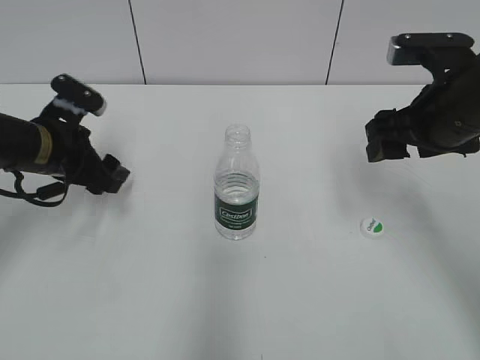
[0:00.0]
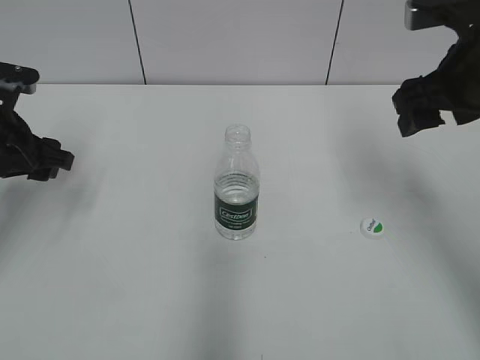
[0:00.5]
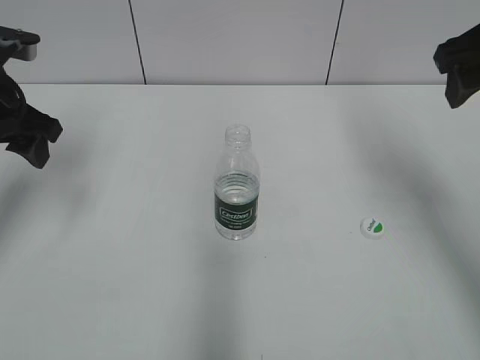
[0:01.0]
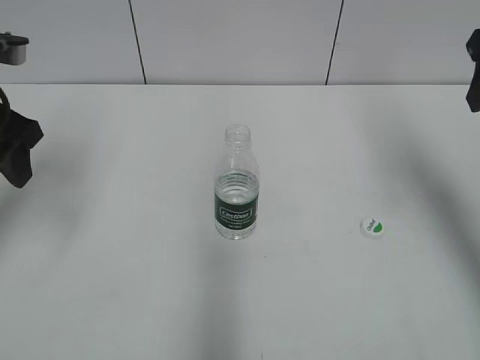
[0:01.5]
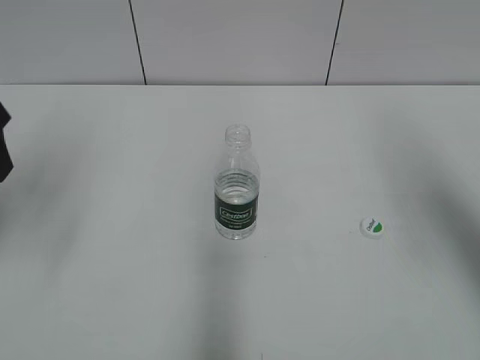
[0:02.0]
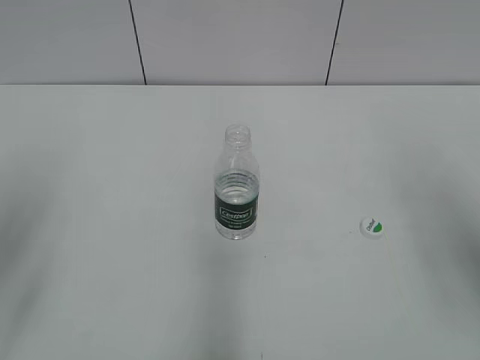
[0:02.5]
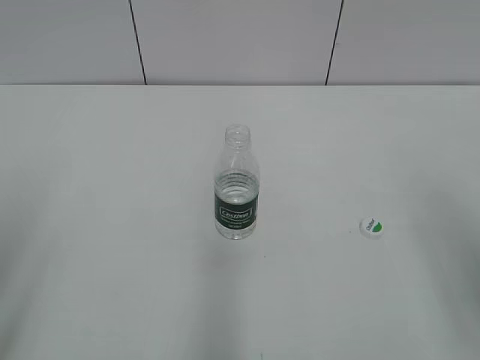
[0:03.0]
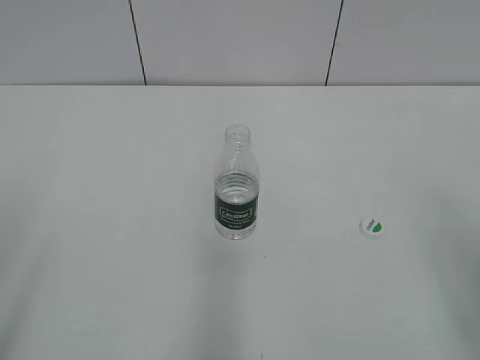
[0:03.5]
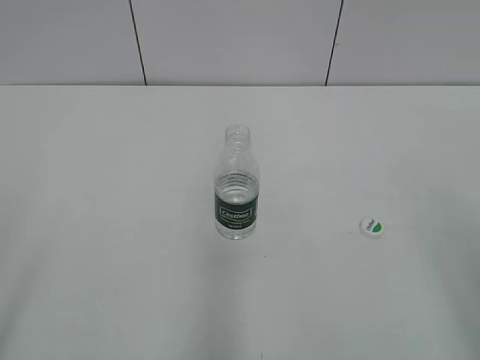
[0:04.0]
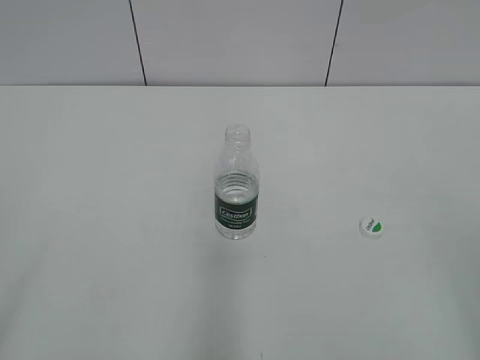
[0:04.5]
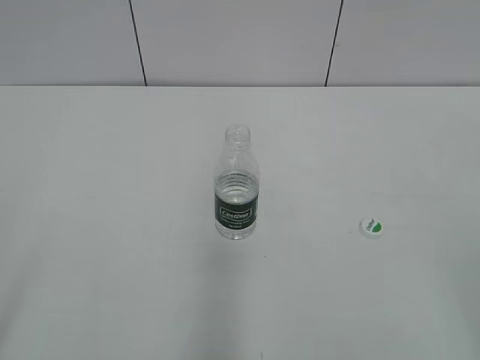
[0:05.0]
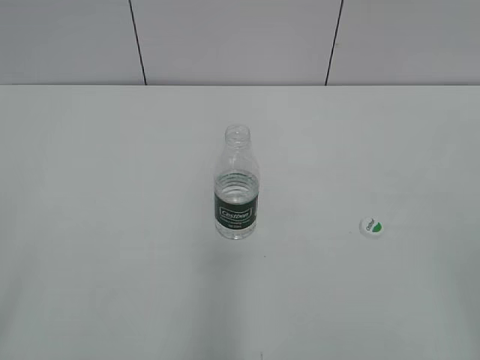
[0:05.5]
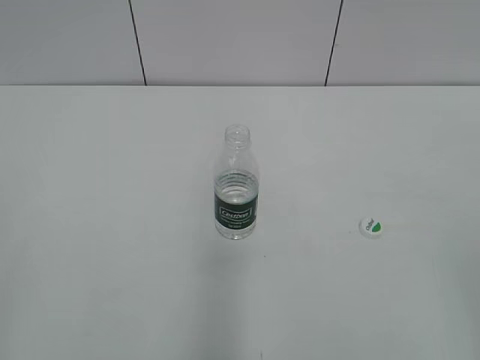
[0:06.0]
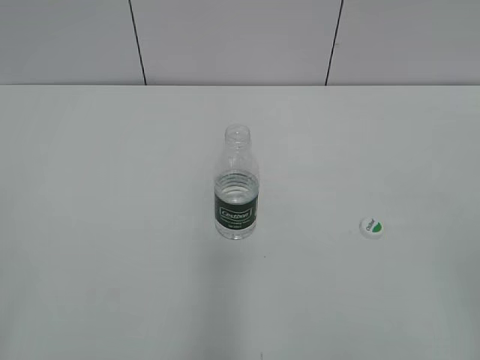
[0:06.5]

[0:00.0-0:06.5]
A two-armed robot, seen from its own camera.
0:00.0 to 0:02.0: The right gripper moves upward, backward and to the right, approximately 15 cm, while the left gripper moves upward and backward, approximately 20 cm.
0:02.0 to 0:04.5: Both grippers travel together backward, roughly 25 cm.

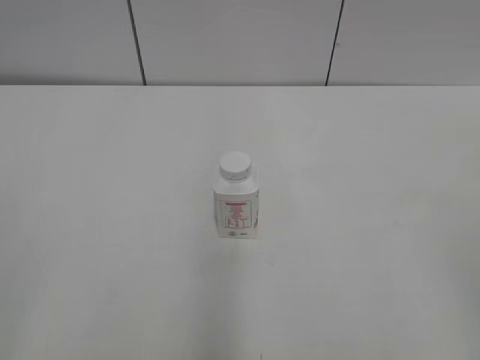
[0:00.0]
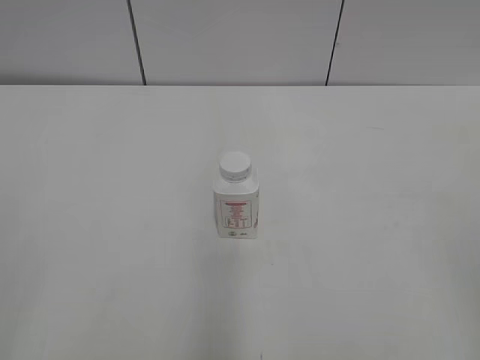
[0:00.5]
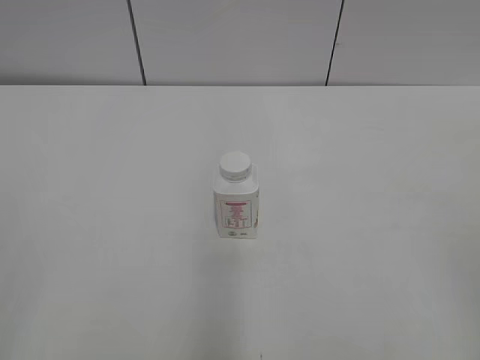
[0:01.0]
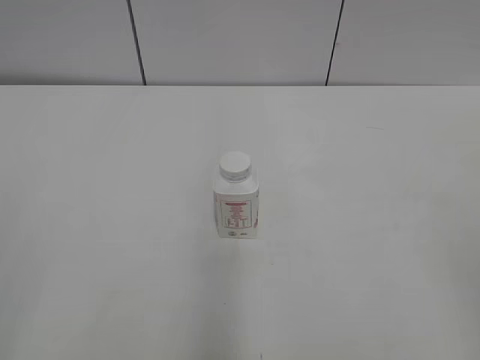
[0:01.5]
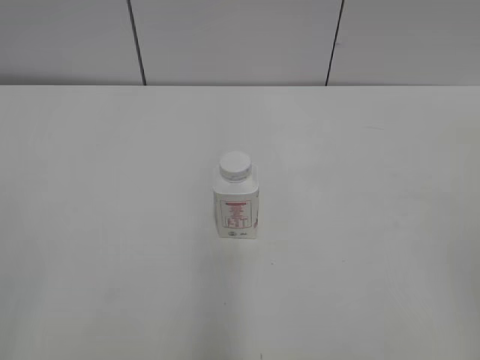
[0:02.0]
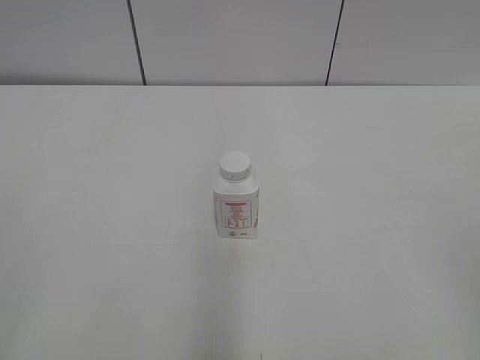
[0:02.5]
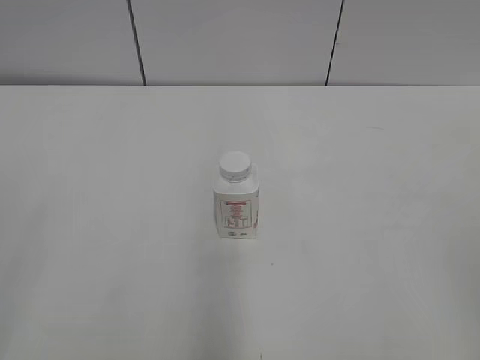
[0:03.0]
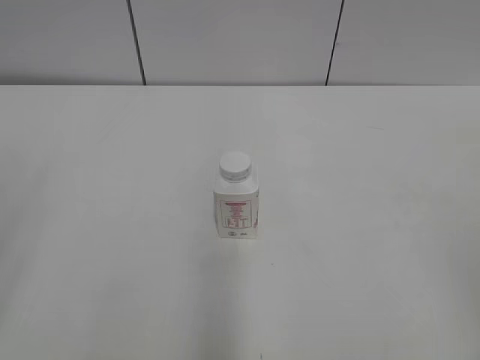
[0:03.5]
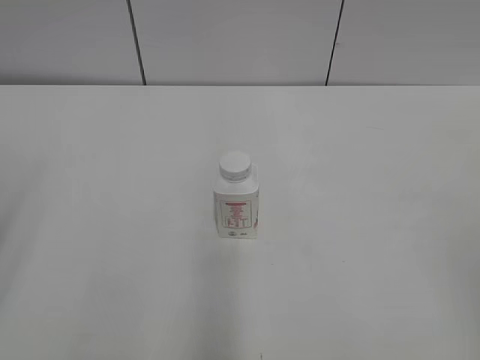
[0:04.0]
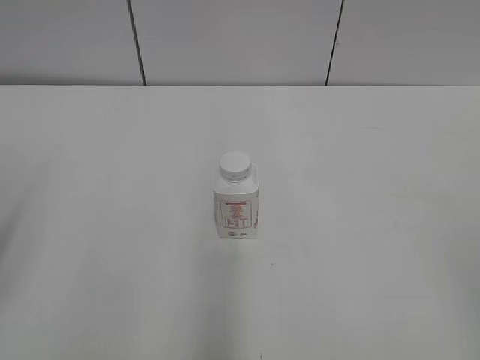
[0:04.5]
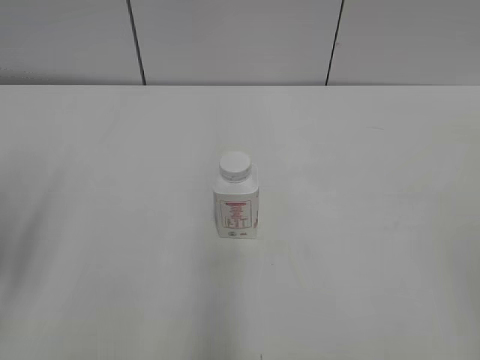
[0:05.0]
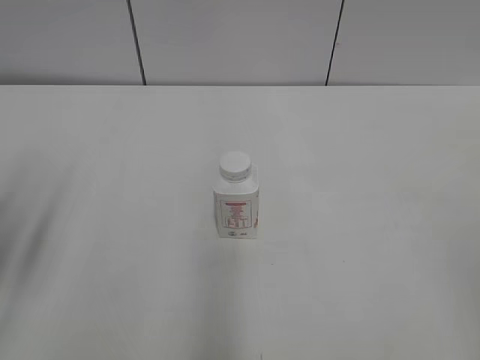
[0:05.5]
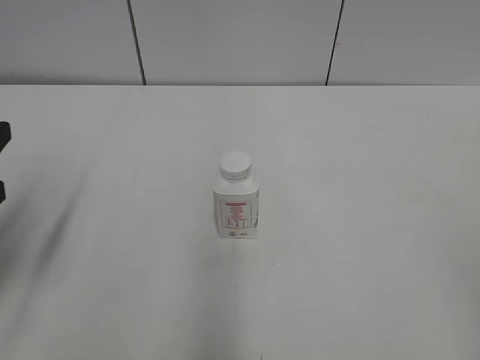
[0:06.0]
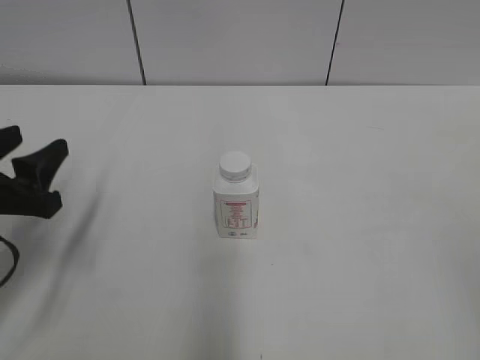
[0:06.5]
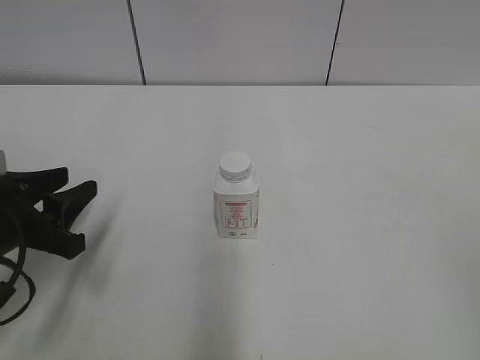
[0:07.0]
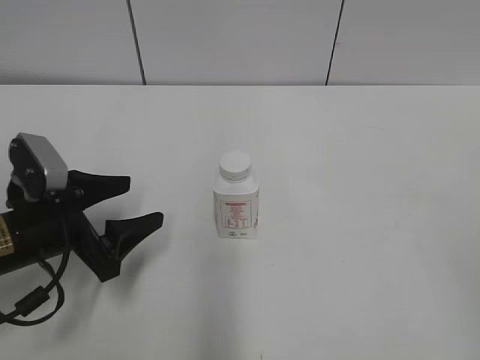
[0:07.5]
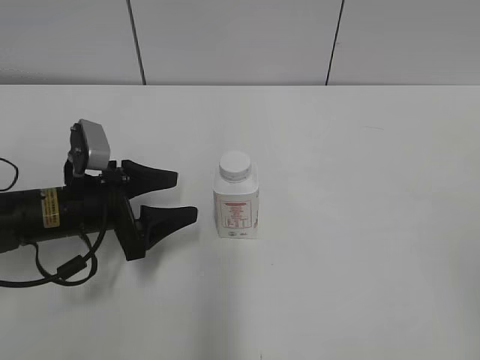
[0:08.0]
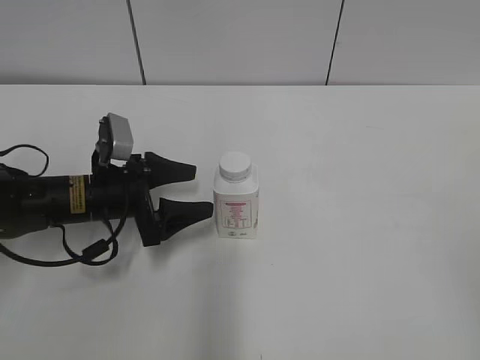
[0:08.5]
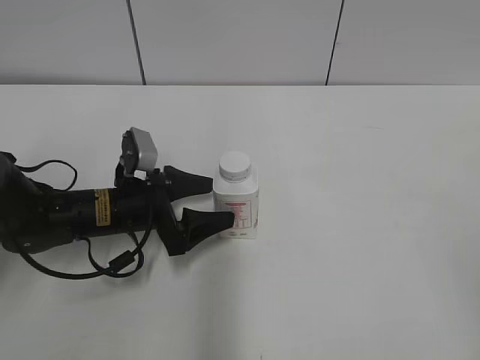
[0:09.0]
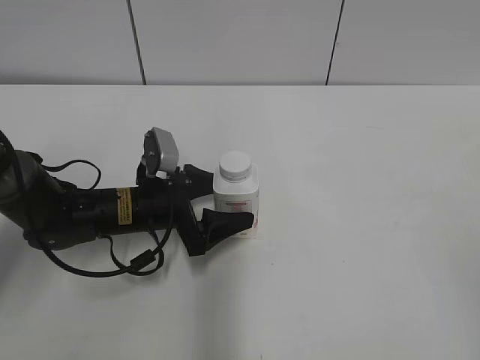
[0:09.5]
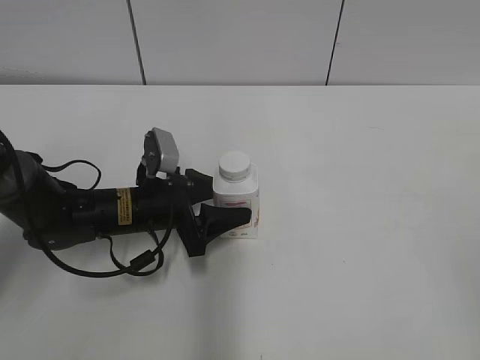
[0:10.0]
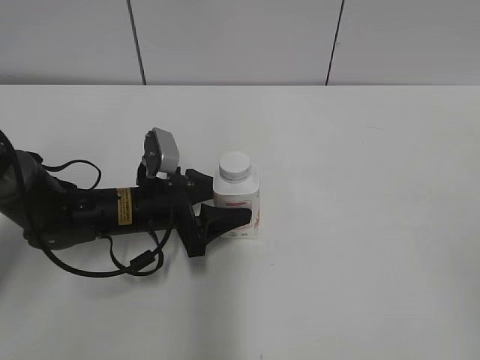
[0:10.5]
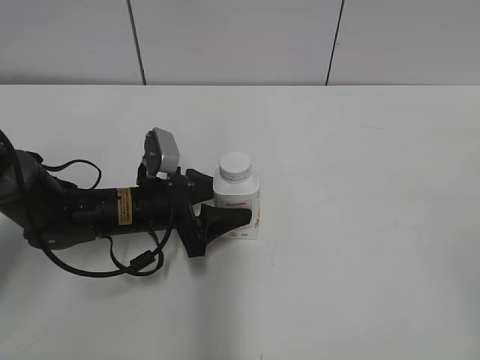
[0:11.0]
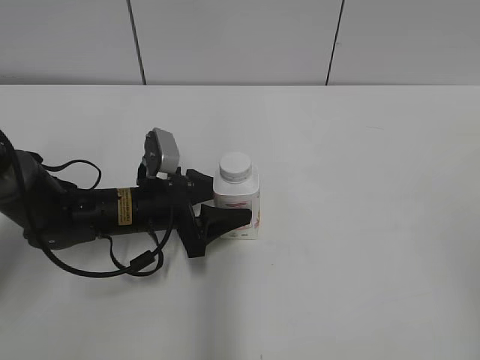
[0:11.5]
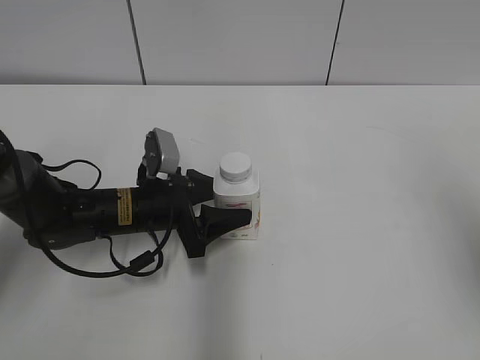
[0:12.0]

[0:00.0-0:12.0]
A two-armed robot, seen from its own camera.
Step, 0:00.0 to 0:10.0: Grab the Yili Changqing with the left hand.
0:04.0 to 0:06.0: The left gripper goes approximately 10 cm forward and downward.
0:06.0 to 0:08.0: The left gripper is displaced downward, forward and to the right by about 20 cm, and opens up.
0:08.0 to 0:10.0: The left gripper moves to the right, some 5 cm.

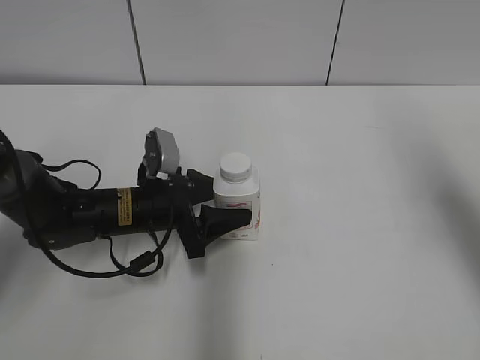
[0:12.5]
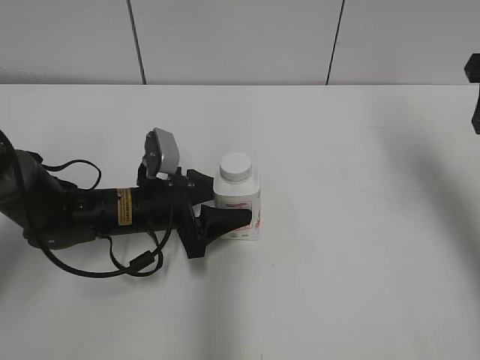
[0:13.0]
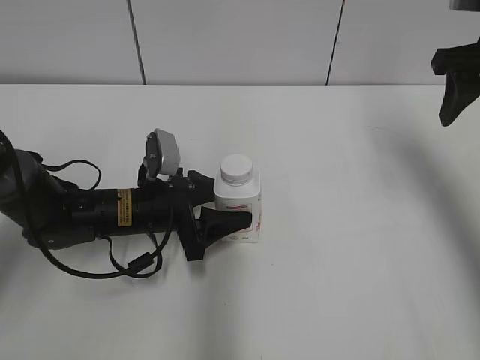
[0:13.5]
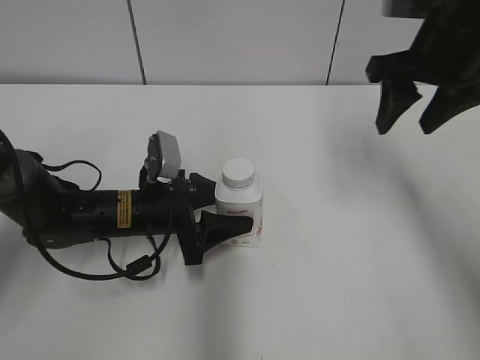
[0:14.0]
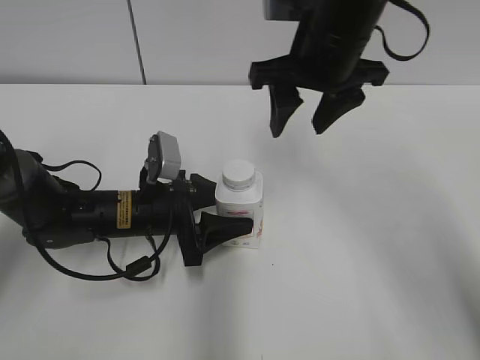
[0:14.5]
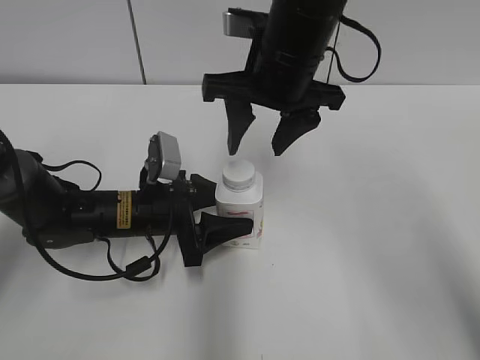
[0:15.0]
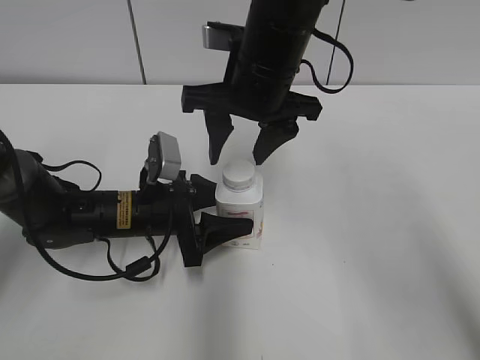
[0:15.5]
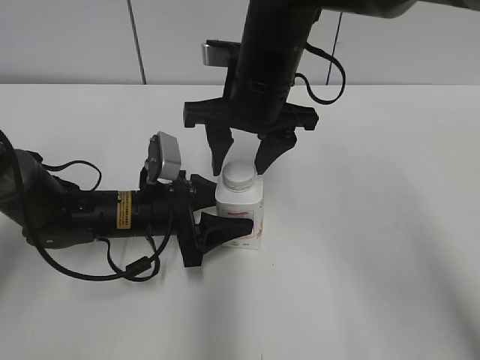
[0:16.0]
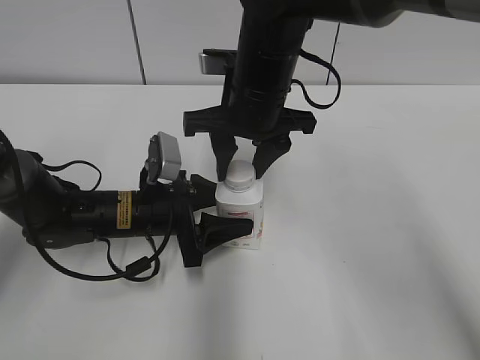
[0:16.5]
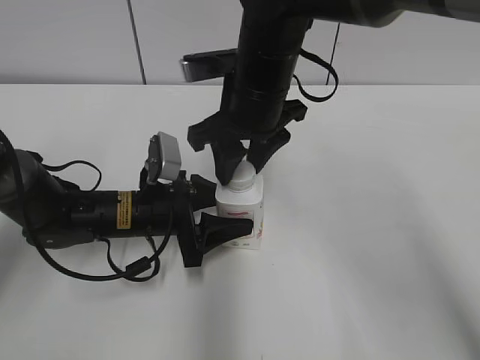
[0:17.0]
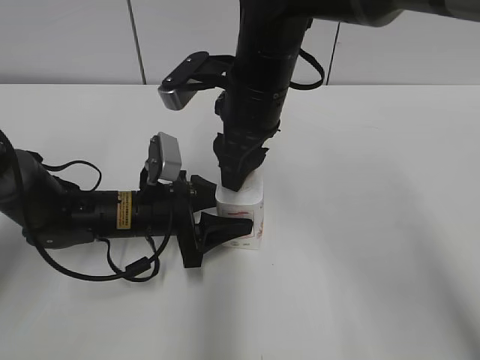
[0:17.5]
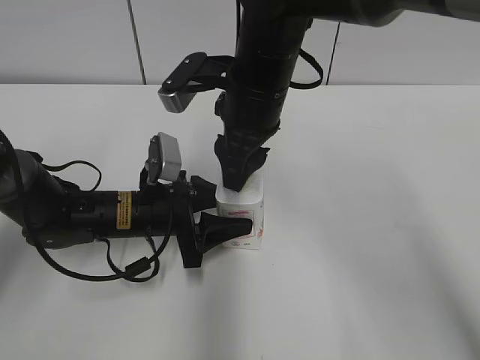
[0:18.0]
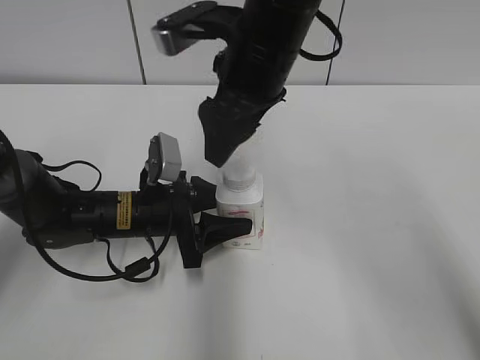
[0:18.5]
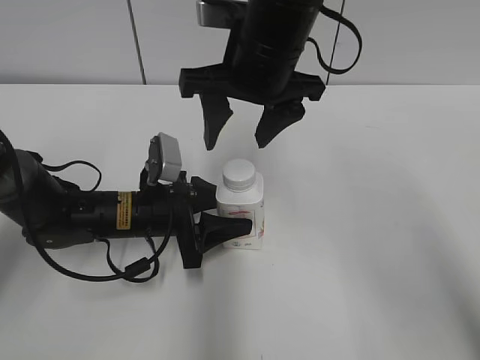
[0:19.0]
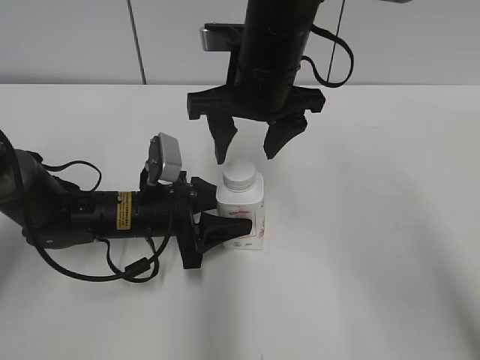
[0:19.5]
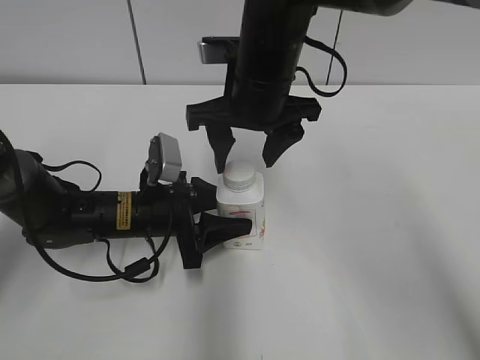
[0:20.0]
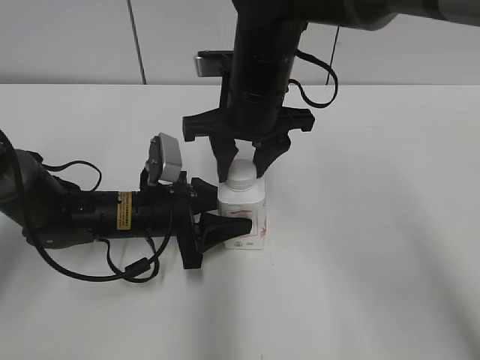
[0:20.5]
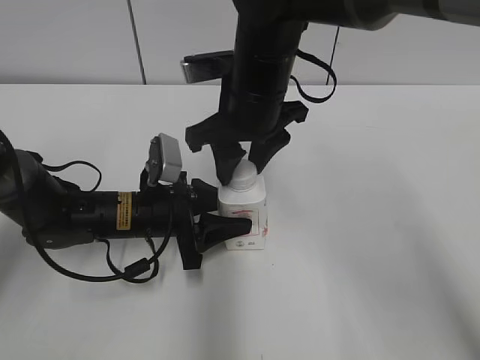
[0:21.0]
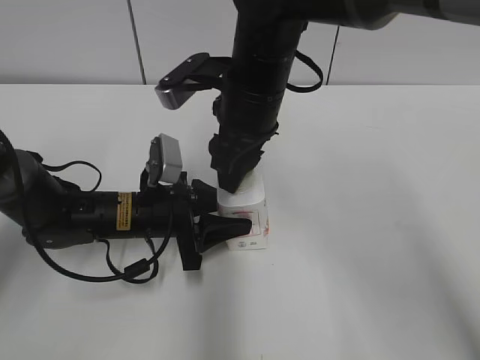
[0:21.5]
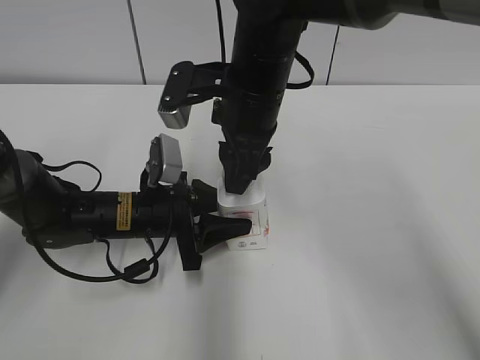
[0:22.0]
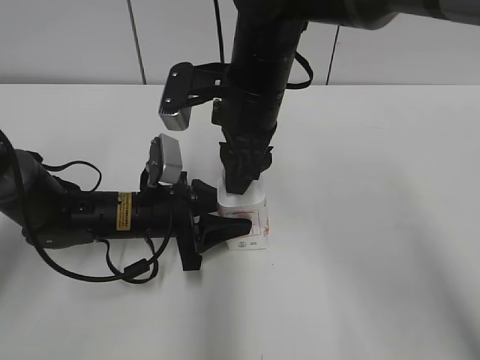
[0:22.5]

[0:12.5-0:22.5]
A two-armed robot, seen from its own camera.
0:12.5 to 0:14.5: The right gripper travels to the left and forward by about 20 cm.
0:14.5 to 0:16.5: The right gripper moves to the left and downward, roughly 10 cm, and closes its fingers.
0:16.5 to 0:18.5: The right gripper changes place by about 5 cm, and opens up.
0:18.5 to 0:20.5: The right gripper travels downward by some 5 cm, and closes its fingers.
